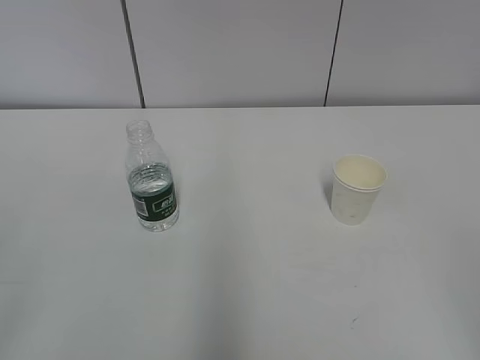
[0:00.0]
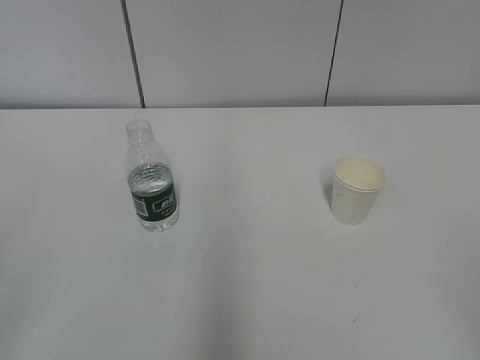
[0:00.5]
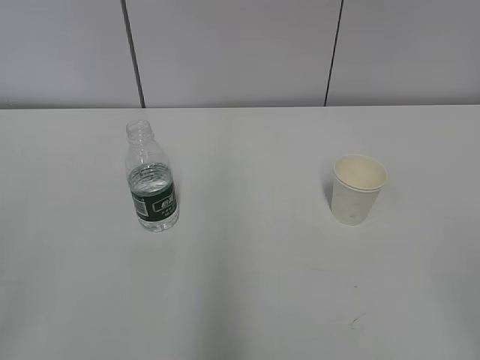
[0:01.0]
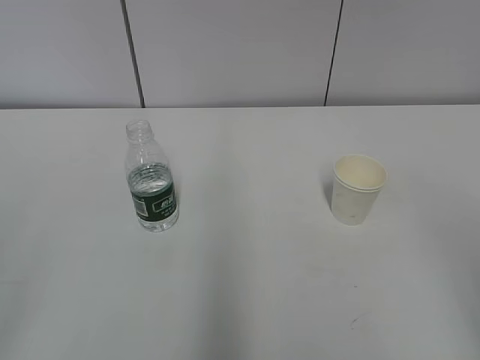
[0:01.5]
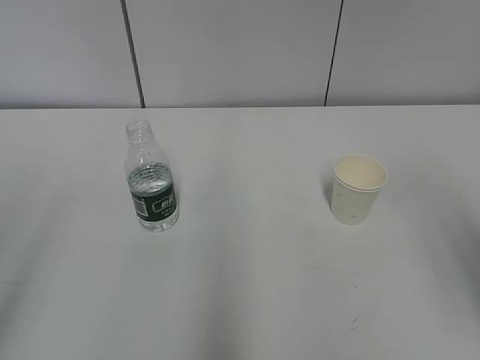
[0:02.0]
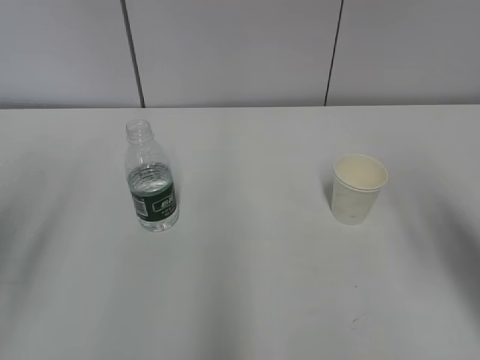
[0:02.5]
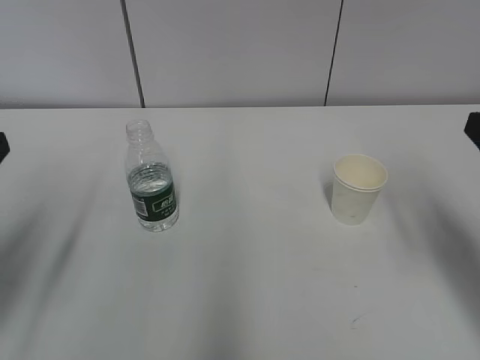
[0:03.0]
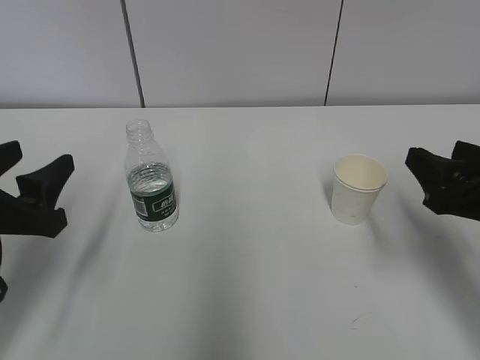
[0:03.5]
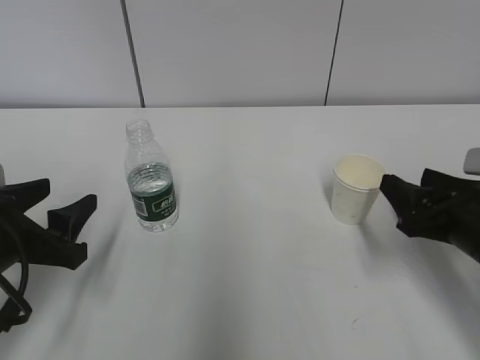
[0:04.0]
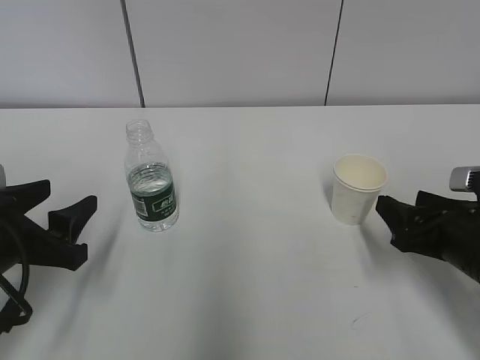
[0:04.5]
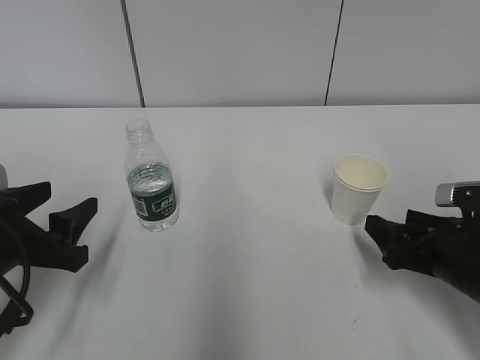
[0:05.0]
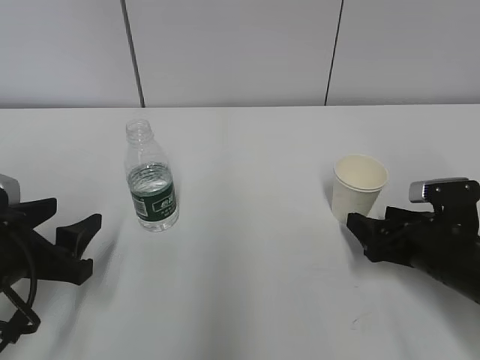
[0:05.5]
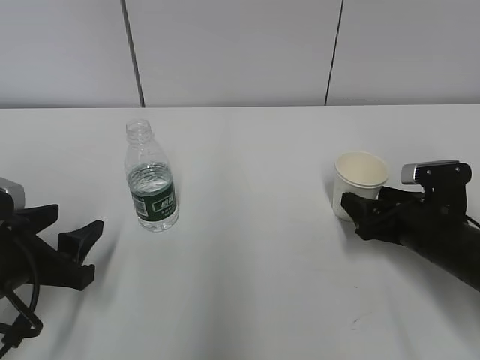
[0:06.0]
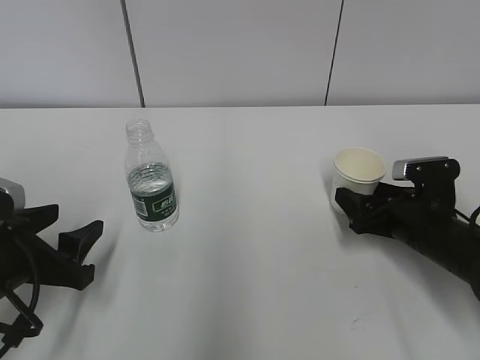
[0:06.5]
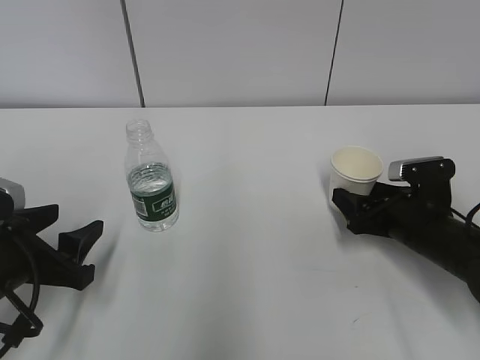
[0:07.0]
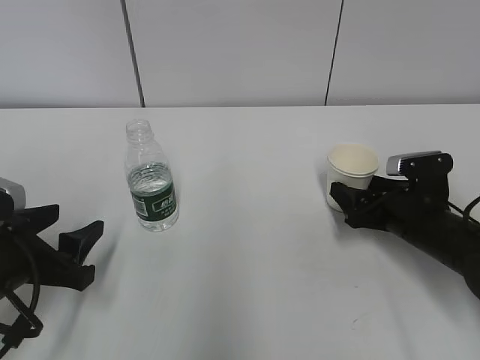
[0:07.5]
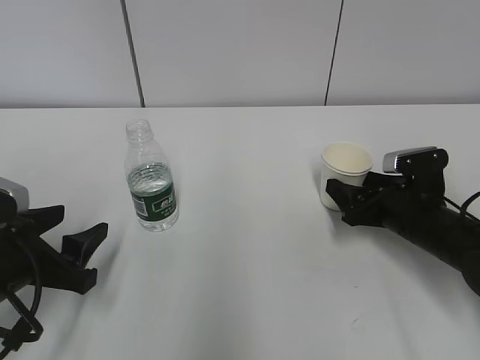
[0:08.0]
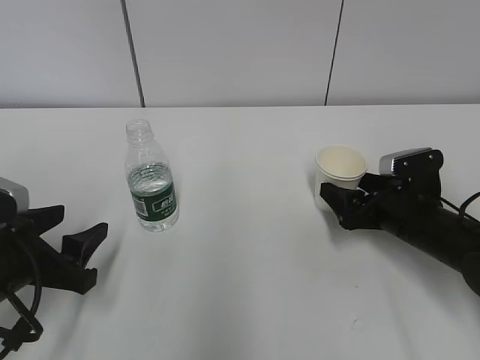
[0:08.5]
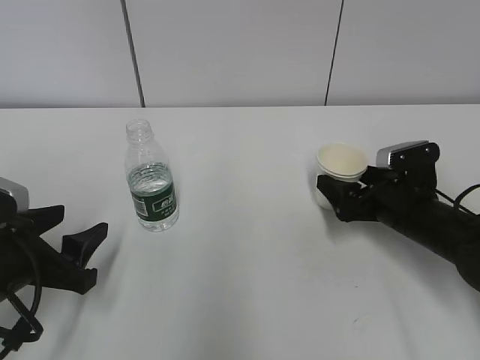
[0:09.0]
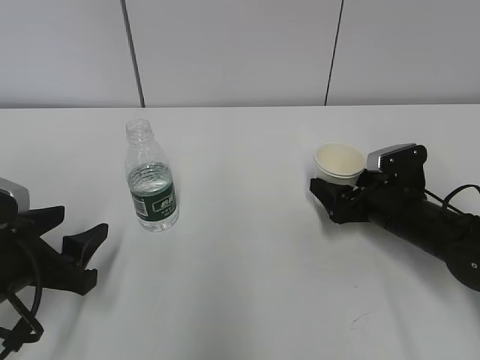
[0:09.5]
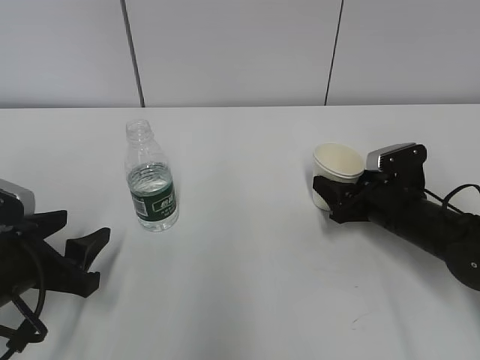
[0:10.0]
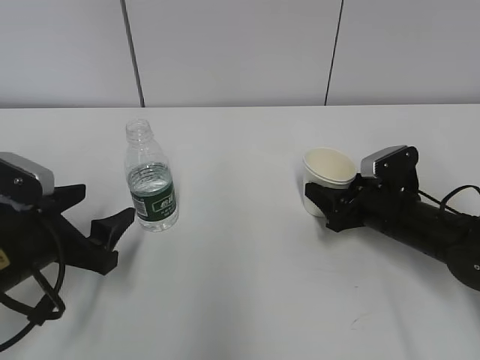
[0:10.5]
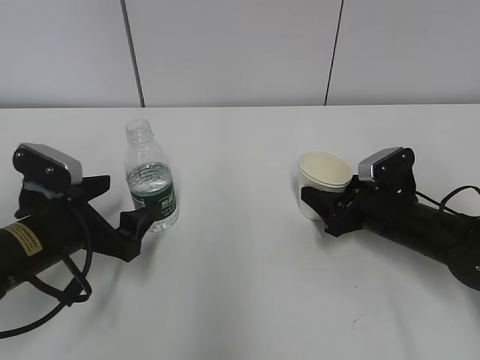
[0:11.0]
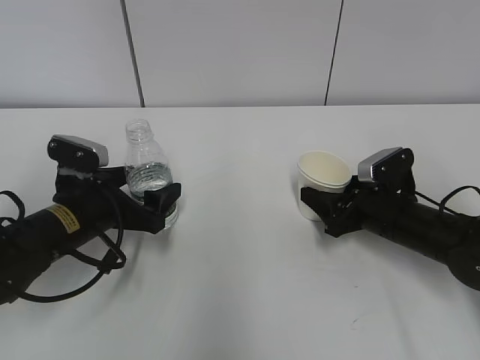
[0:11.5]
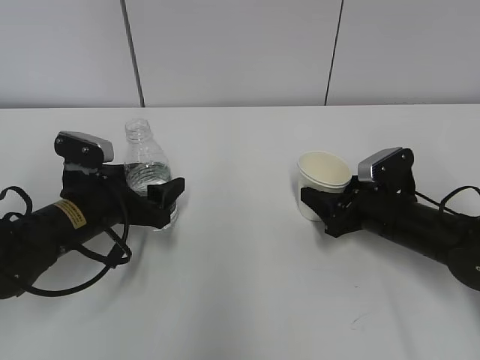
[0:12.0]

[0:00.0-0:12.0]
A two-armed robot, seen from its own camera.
Step, 0:00.0 to 0:08.0: Grab the paper cup with the right hand.
Step, 0:08.5 to 0:10.0: Grab the water bottle with the left hand.
0:02.0 to 0:04.0: The two grippers go roughly 25 cm downward and forward.
0:04.0 to 0:06.0: The right gripper goes approximately 10 cm downward and forward.
0:06.0 to 0:08.0: The grippers make only small movements.
0:08.0 to 0:10.0: The right gripper closes.
0:10.0 to 0:12.0: The left gripper travels forward and to the right by roughly 10 cm.

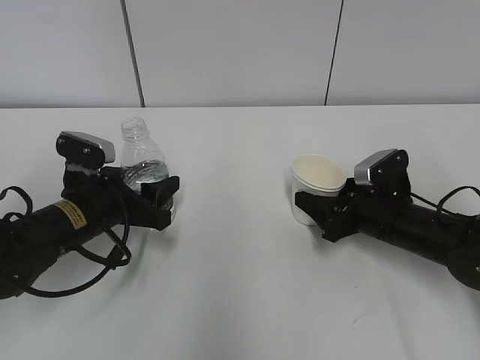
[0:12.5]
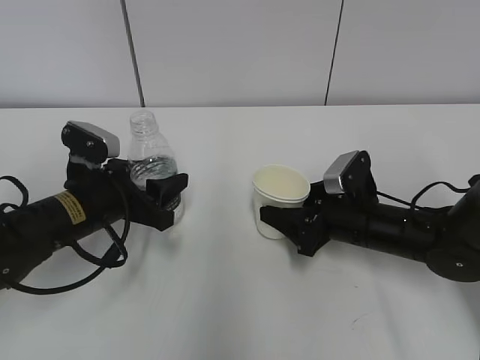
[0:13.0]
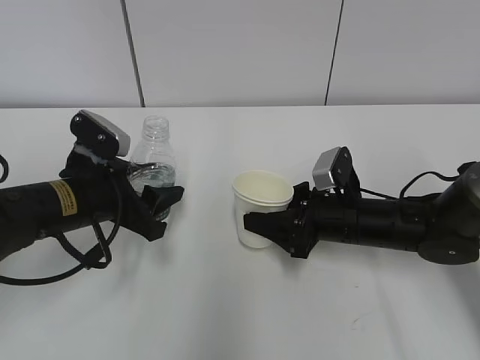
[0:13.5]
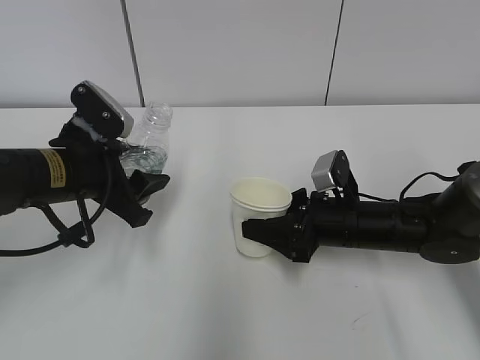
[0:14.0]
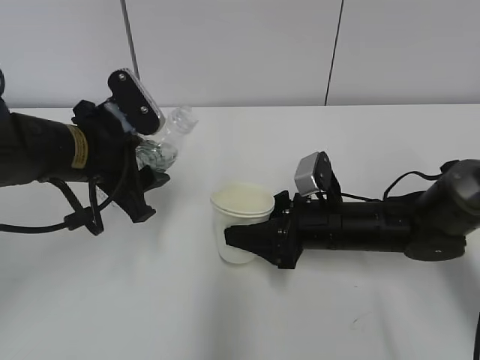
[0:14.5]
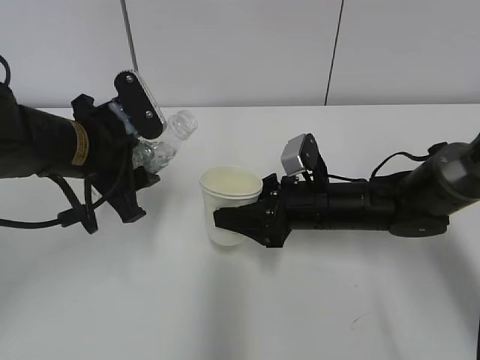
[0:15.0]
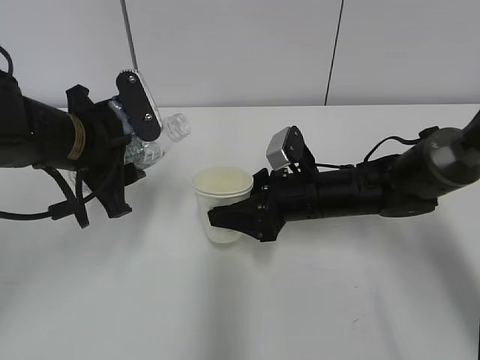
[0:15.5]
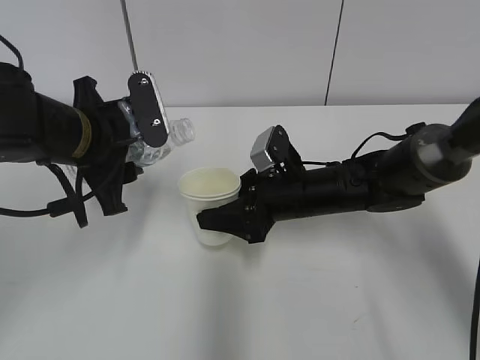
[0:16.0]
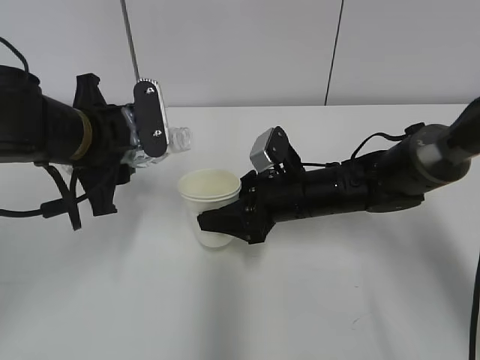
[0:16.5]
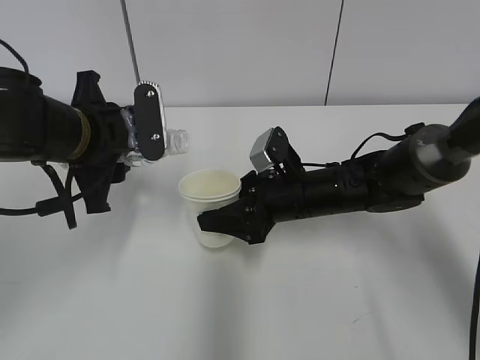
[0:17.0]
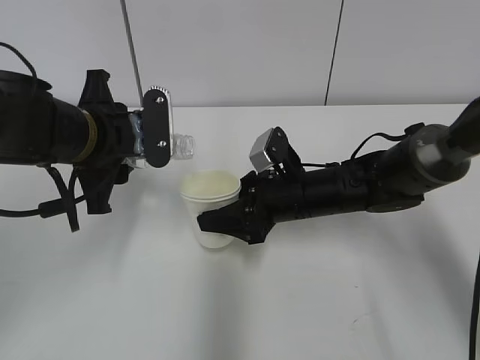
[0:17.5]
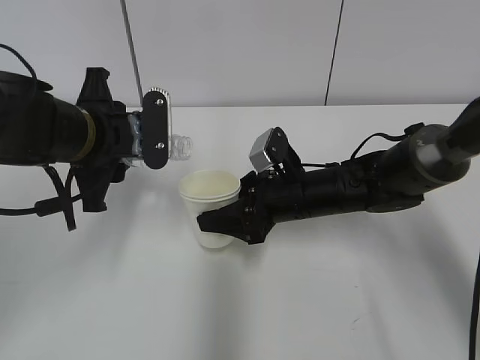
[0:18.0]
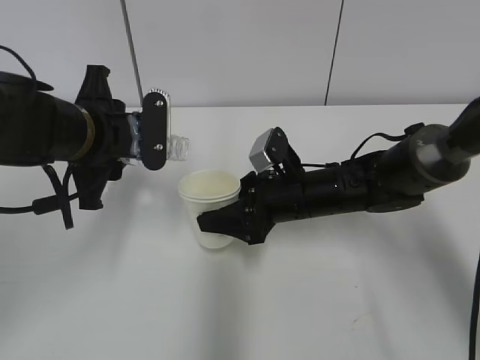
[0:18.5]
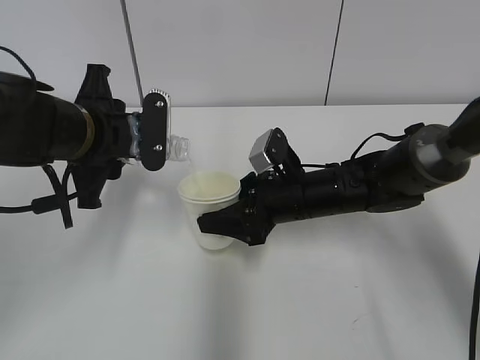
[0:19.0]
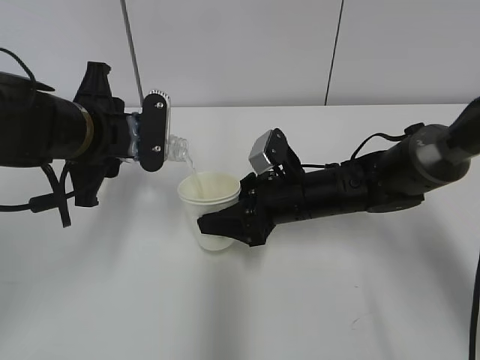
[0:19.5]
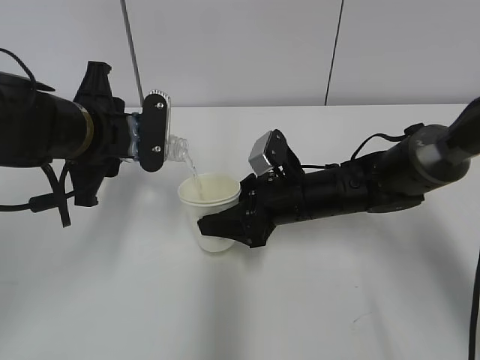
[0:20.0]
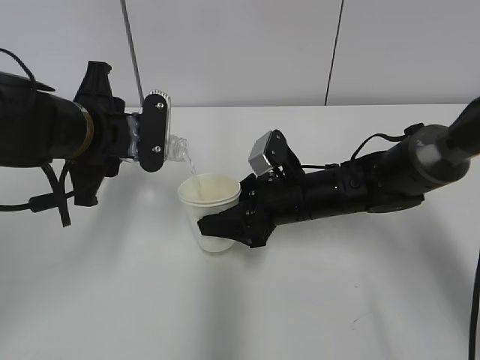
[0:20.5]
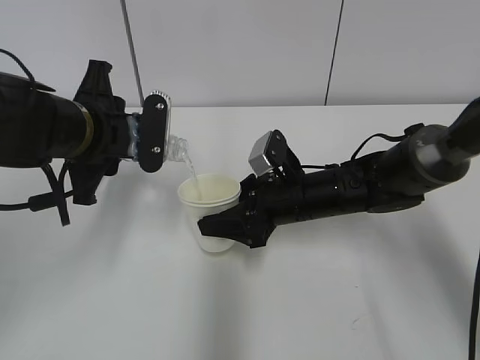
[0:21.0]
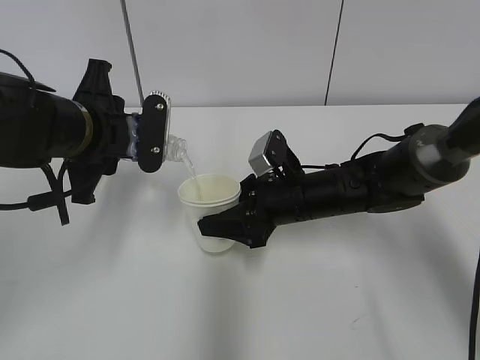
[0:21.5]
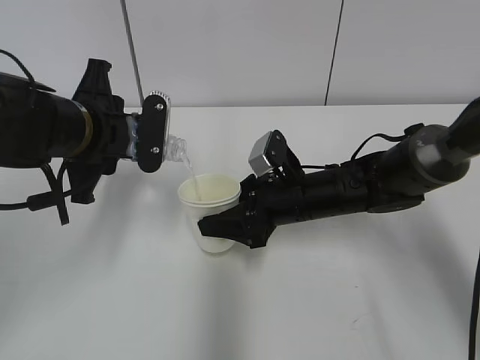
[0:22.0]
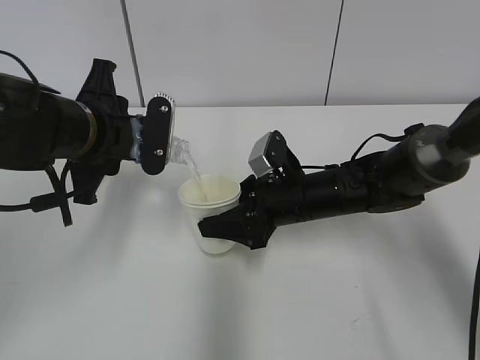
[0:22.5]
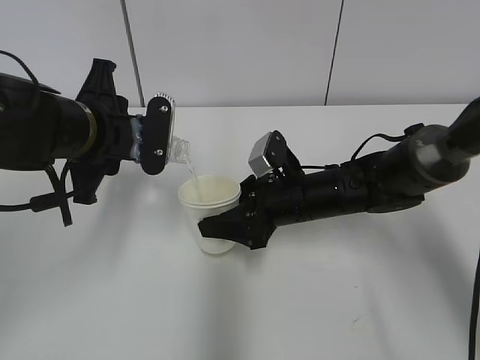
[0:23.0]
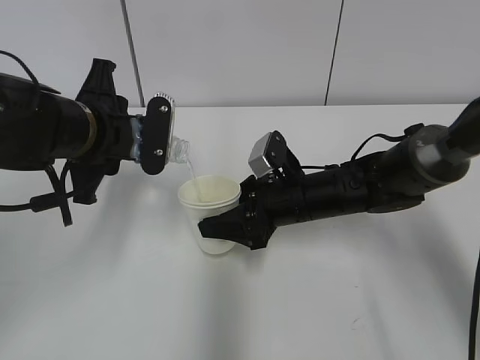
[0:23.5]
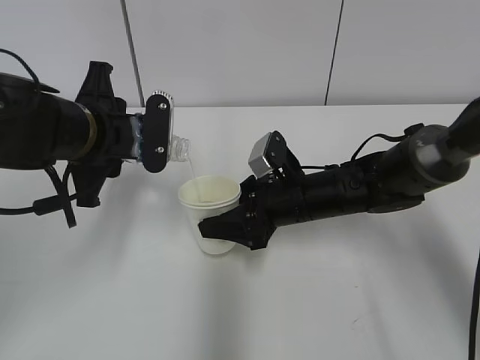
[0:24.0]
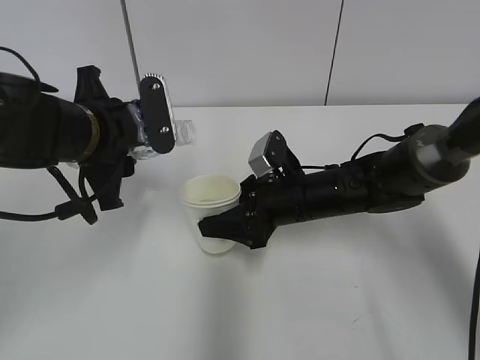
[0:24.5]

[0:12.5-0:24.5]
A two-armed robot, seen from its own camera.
Step, 0:12.5 to 0:14.5: Lift the paper cup with the right hand.
Step, 0:15.0 to 0:20.0: Fill water with the right hand.
Step, 0:15.0 to 0:20.0: Pour water with the left hand.
Step, 0:20.5 to 0:22.5: Collect water with the left hand.
0:12.5 to 0:14.5: The right gripper travels to the left by some 10 cm. Meanwhile the left gripper shifts roughly 10 cm upward.
0:14.5 to 0:16.5: The right gripper changes place by roughly 5 cm.
0:16.5 to 0:18.5: The grippers stay close to where they were, moving slightly.
0:18.5 to 0:20.5: The two grippers keep their place.
0:20.5 to 0:22.5: The two grippers keep their place.

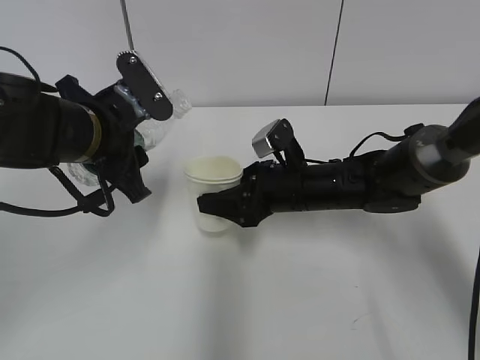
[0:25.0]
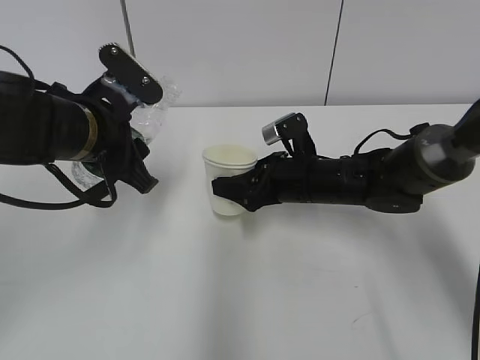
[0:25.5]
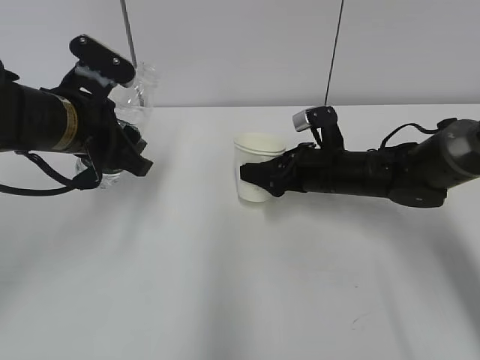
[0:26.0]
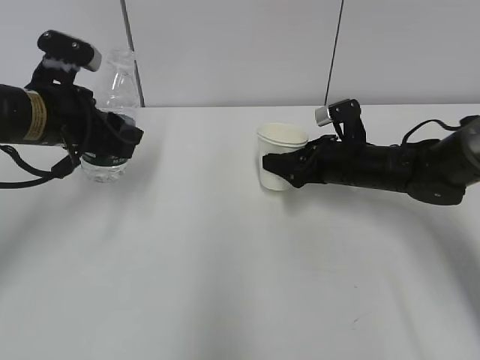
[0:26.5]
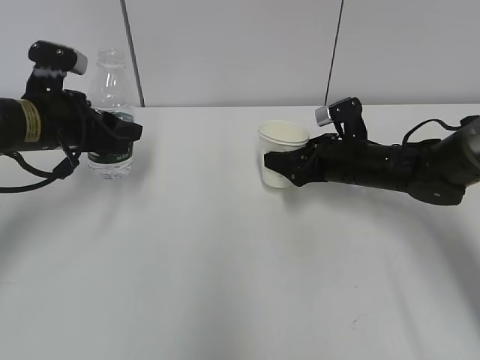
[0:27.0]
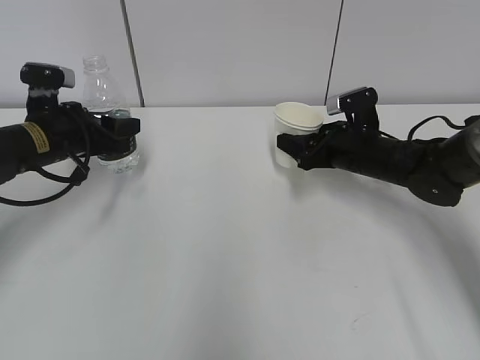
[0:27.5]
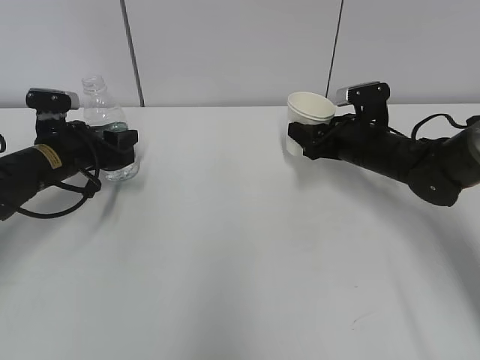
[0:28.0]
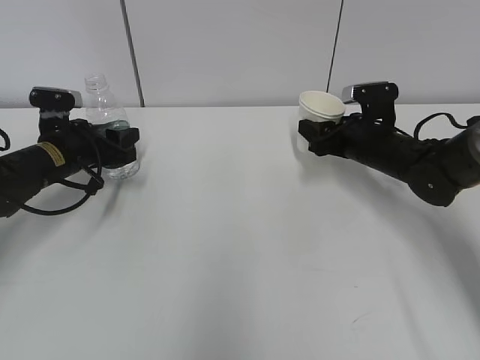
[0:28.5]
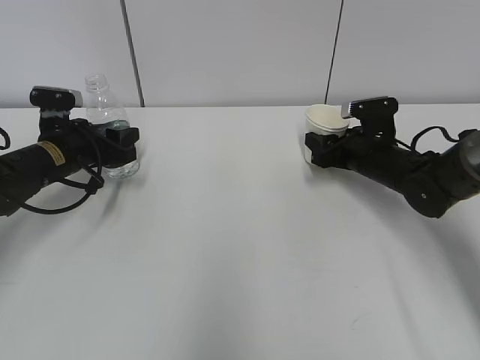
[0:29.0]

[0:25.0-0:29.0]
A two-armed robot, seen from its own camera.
Step, 0:26.0 to 0:27.0: Place the water bottle with the left hand.
0:25.0 to 0:27.0: The right gripper travels to the right by roughly 10 cm, while the left gripper shifts roughly 10 cm to the left and forward.
0:27.0 to 0:29.0: The left gripper moves downward, approximately 10 cm.
